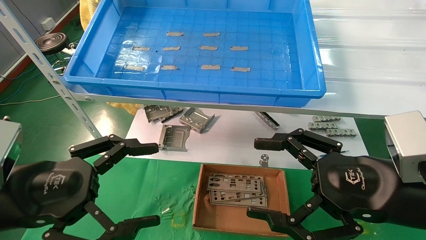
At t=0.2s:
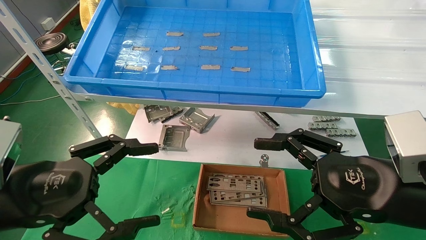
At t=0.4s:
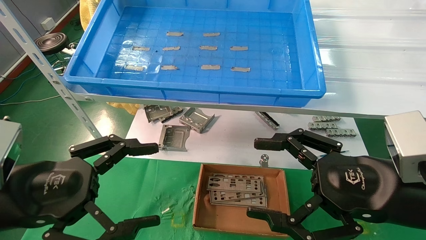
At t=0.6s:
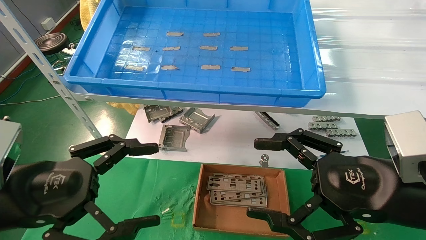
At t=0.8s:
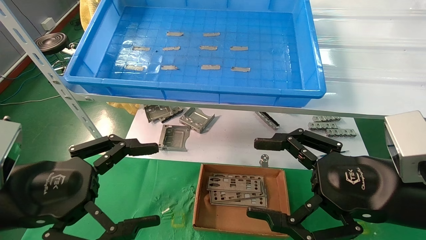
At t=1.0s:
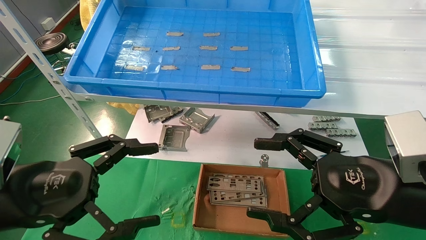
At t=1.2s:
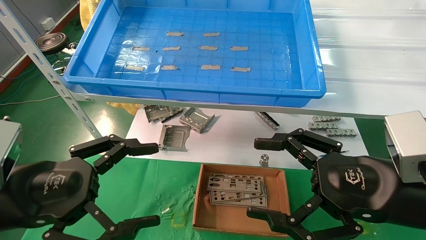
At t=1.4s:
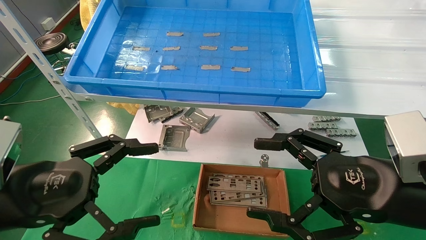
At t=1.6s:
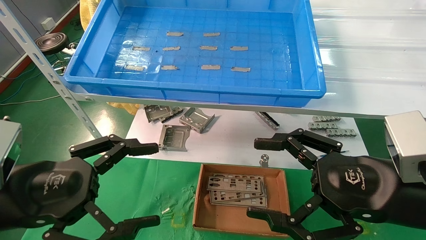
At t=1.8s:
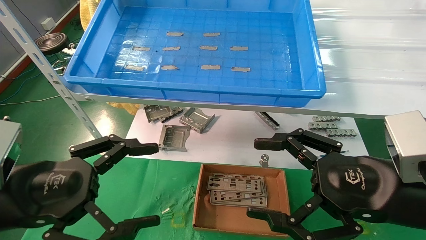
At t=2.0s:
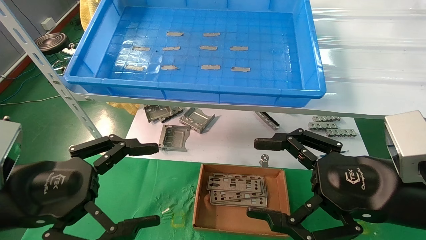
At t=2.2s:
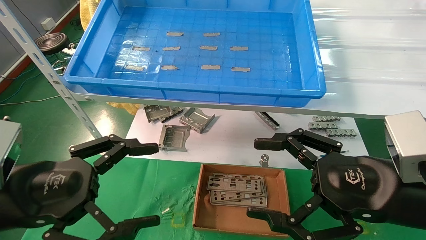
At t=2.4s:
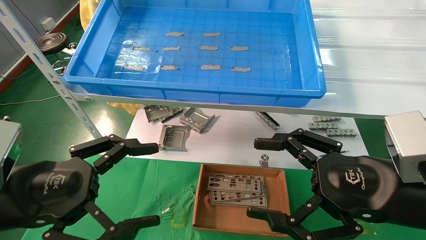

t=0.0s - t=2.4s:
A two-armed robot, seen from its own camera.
Task of the whole recording: pick up the parts on the tray and put them in the cardboard box.
t=0.0s - t=2.4s: Both grippers stay about where they are.
